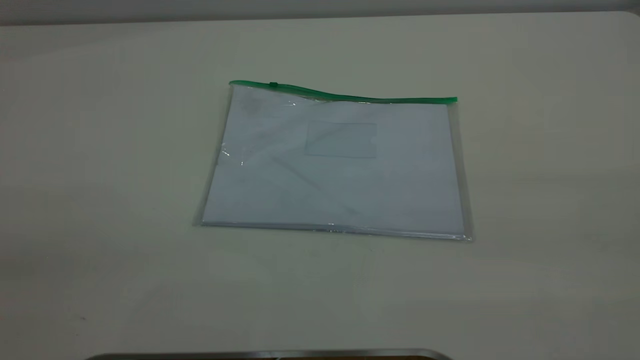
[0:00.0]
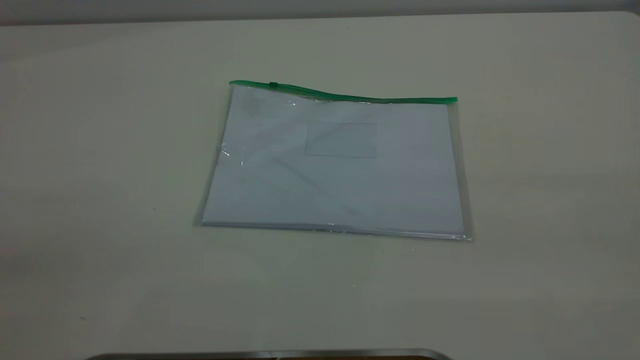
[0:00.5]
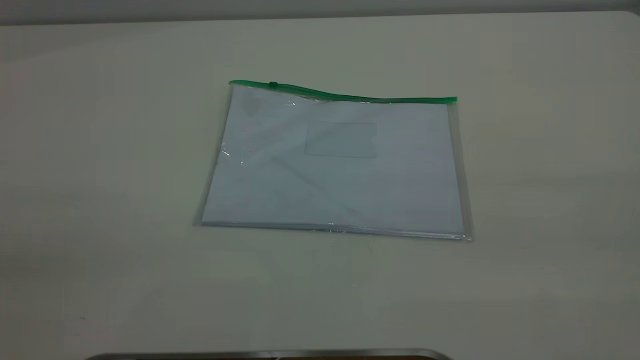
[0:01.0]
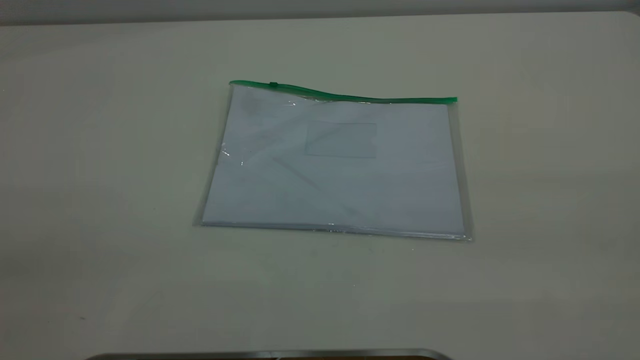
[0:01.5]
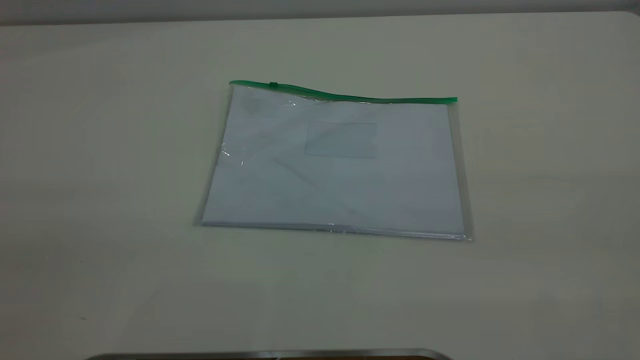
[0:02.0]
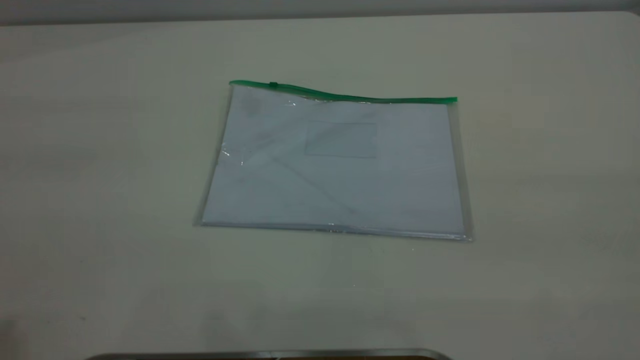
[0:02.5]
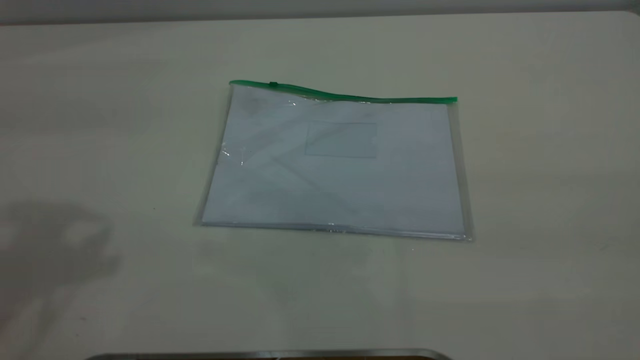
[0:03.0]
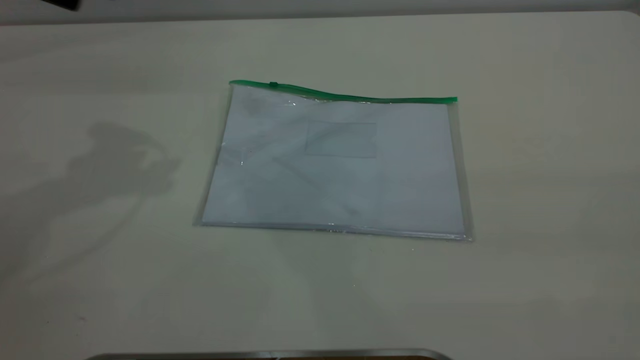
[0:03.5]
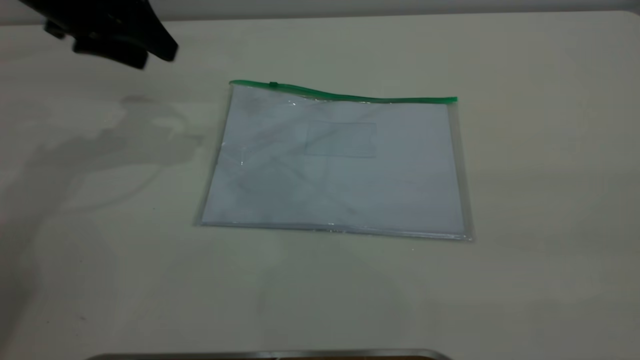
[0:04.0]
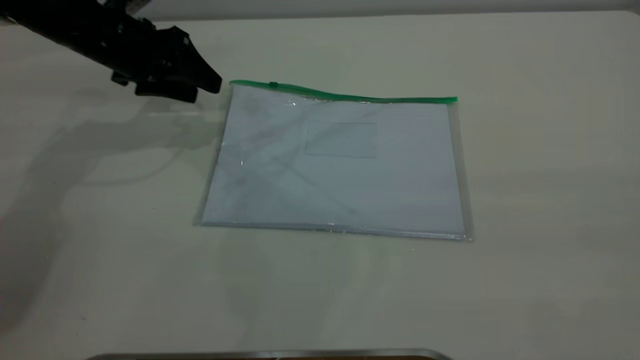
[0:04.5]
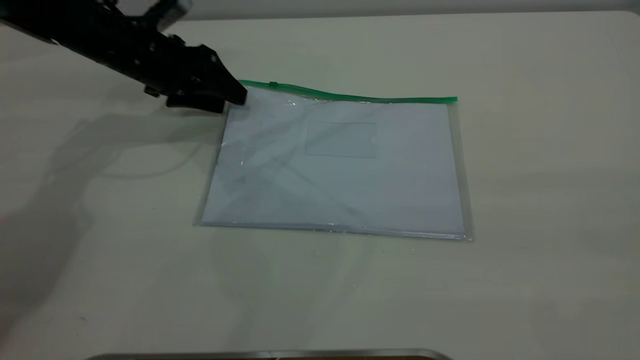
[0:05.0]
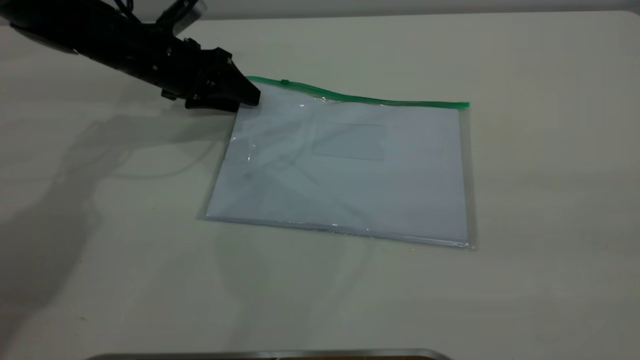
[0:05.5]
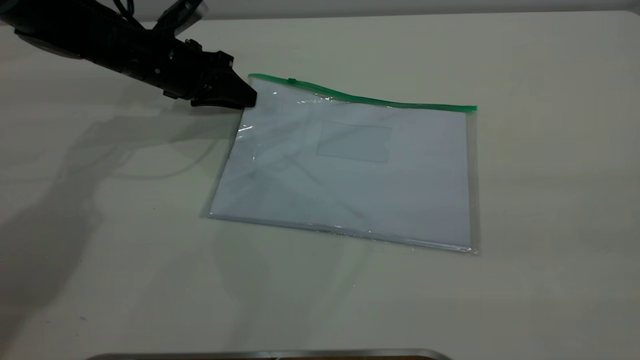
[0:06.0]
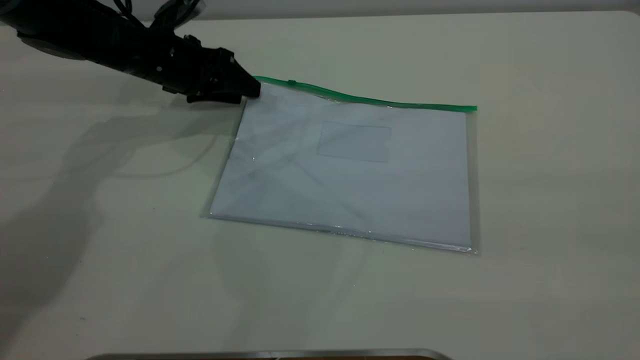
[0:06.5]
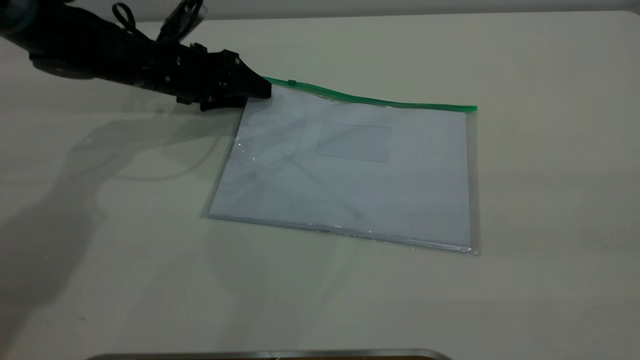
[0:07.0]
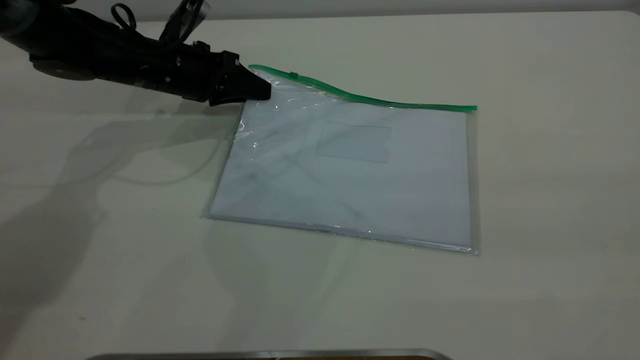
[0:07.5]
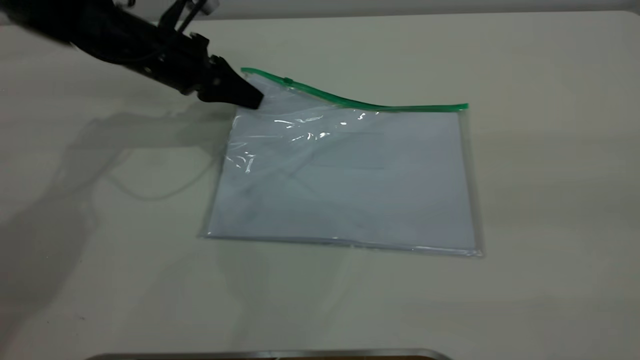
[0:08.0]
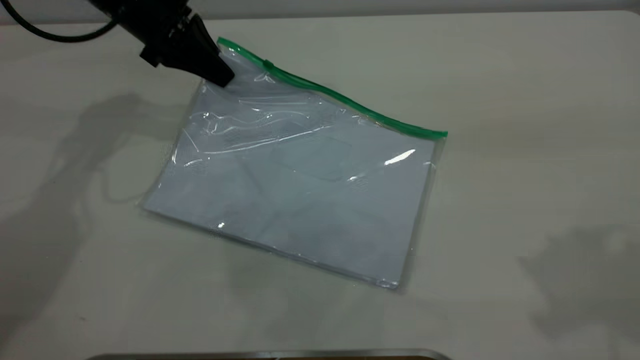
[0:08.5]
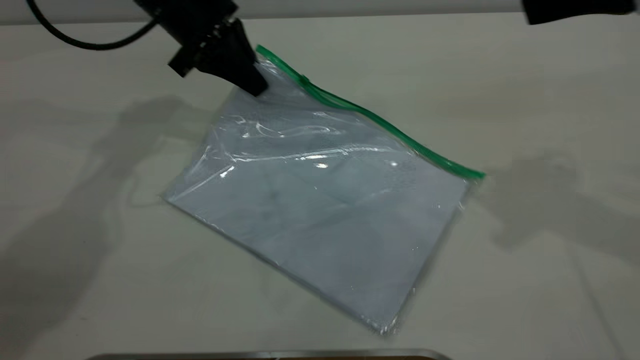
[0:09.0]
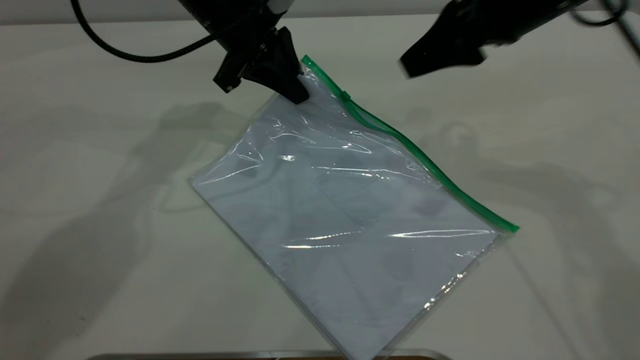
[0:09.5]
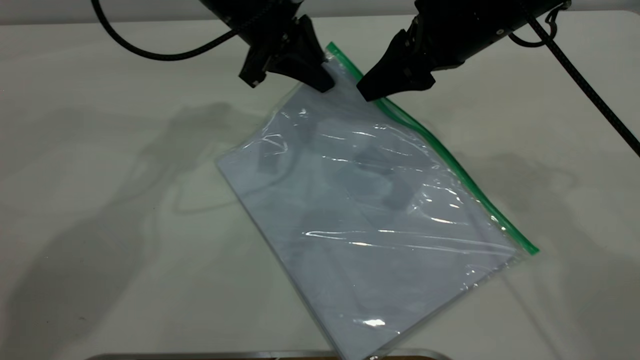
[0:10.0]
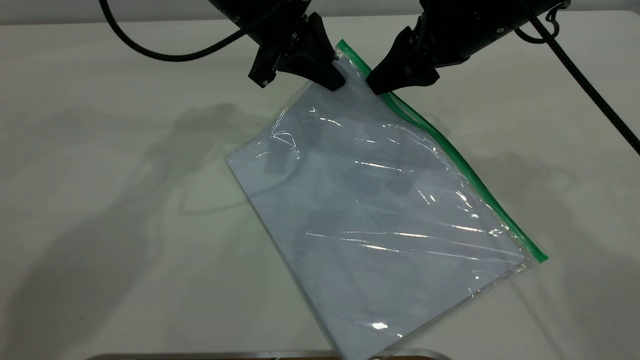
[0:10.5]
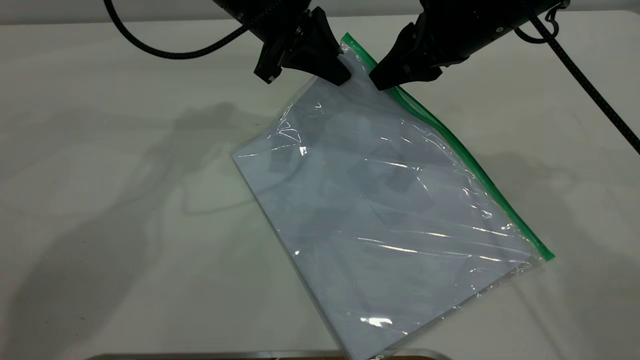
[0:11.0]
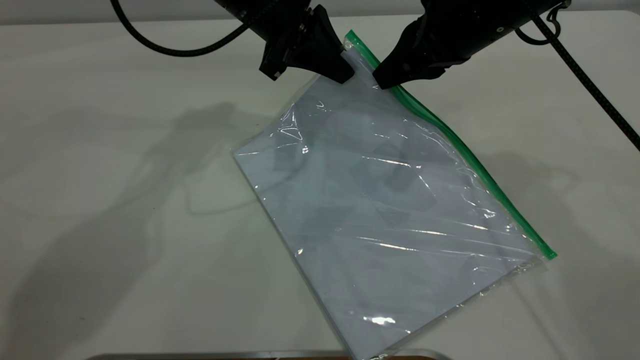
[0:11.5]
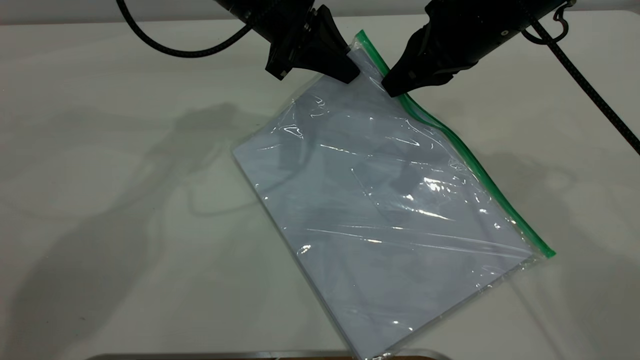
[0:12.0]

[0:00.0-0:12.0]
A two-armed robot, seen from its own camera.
Step, 0:00.0 to 0:08.5: Pick up the transparent plastic bag with the left gripper.
0:00.0 to 0:02.0: Both grippers stay put.
0:02.0 to 0:04.0: The left gripper shifts about 50 cm forward and downward.
0:04.0 to 0:06.0: The left gripper heads downward and forward, covering approximately 15 cm, and closes its fingers.
0:06.0 to 0:08.0: The left gripper opens, then closes once more. Meanwhile the right gripper goes some 5 cm forward.
0:08.0 to 0:10.0: The right gripper is displaced forward, downward and to the left by approximately 40 cm. The left gripper is displaced to the right and upward by approximately 15 cm.
0:10.0 to 0:12.0: The right gripper closes up.

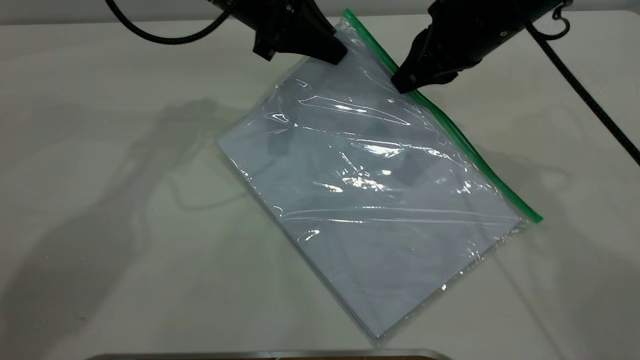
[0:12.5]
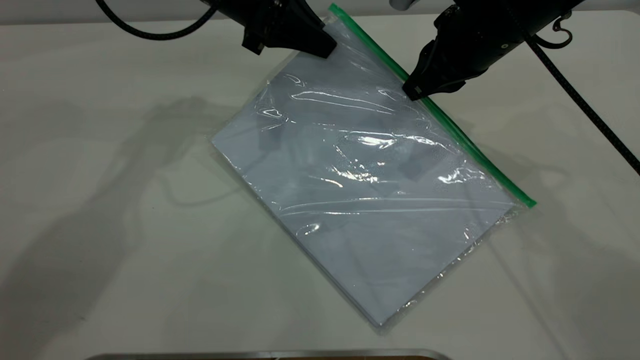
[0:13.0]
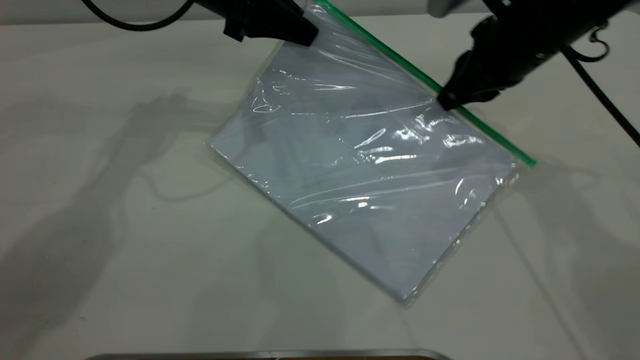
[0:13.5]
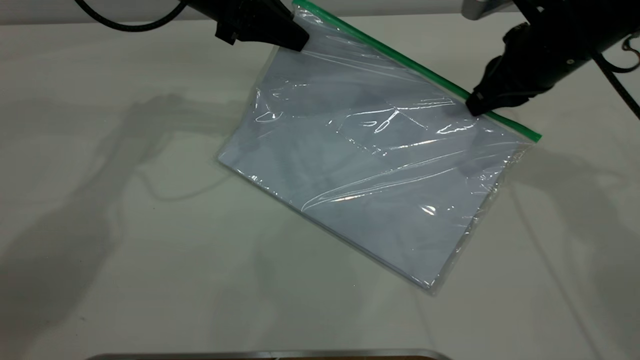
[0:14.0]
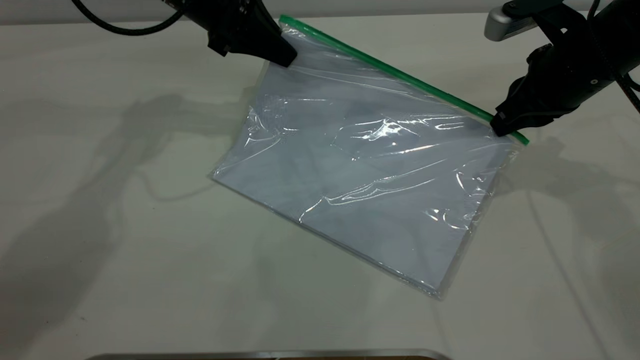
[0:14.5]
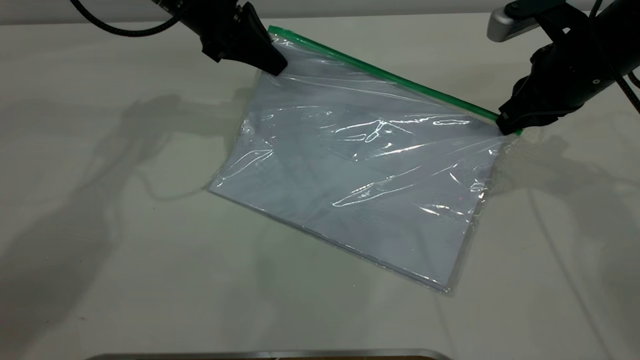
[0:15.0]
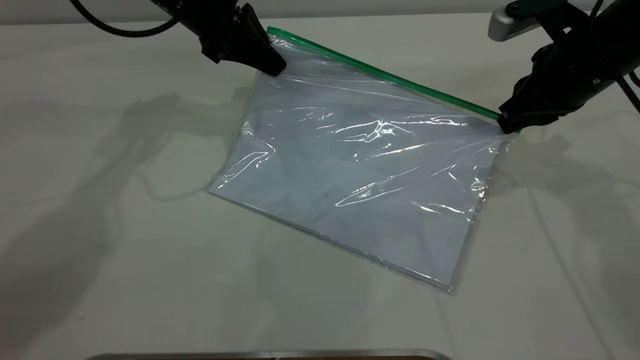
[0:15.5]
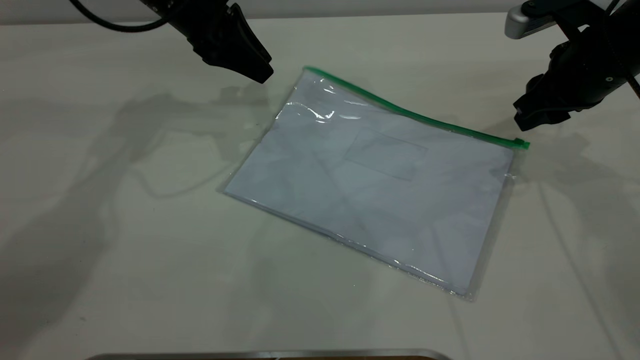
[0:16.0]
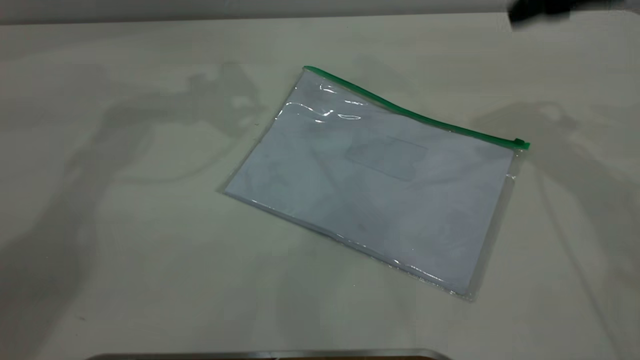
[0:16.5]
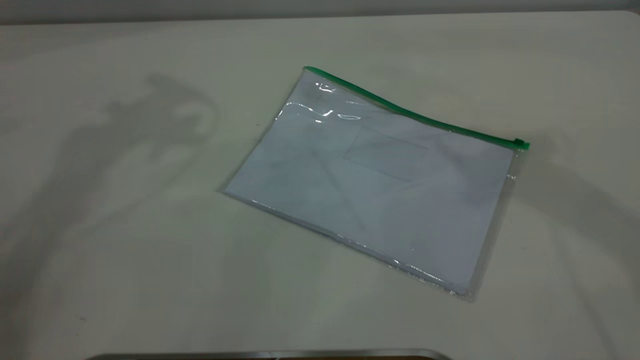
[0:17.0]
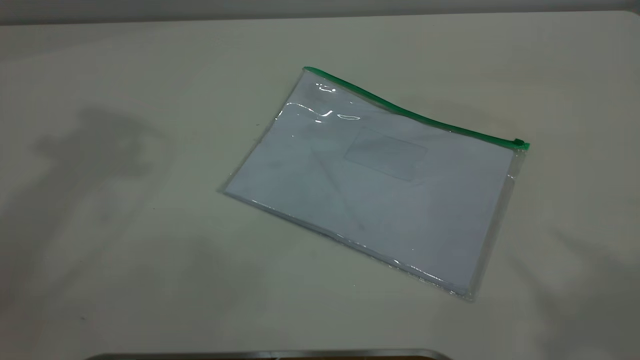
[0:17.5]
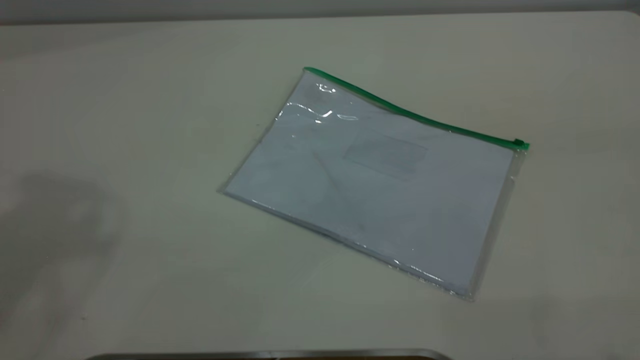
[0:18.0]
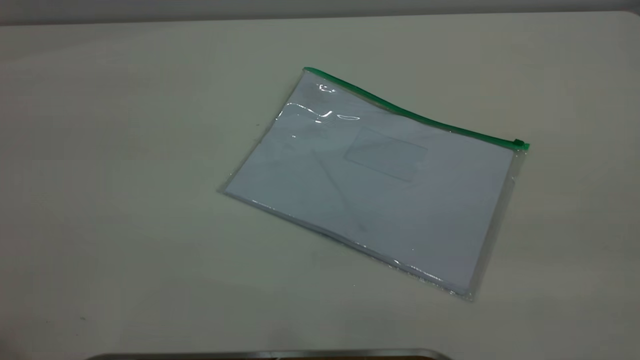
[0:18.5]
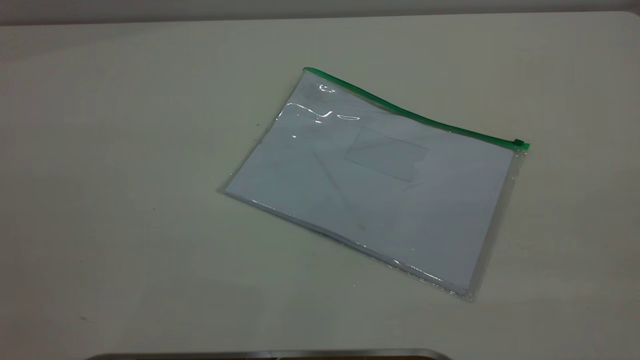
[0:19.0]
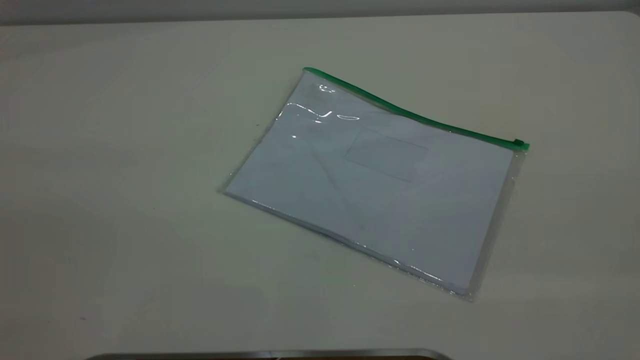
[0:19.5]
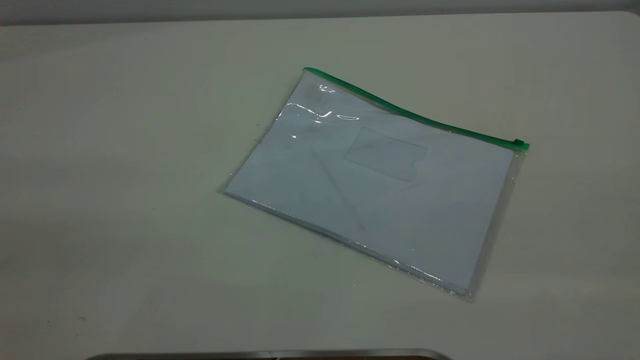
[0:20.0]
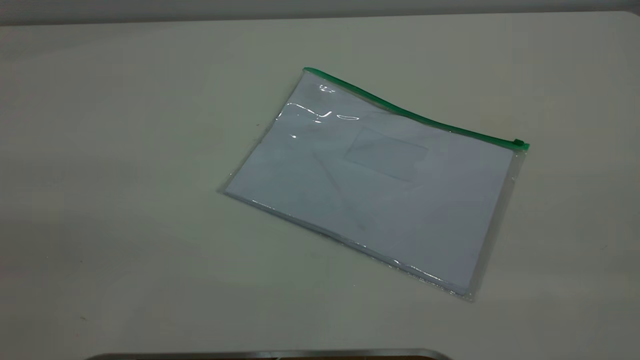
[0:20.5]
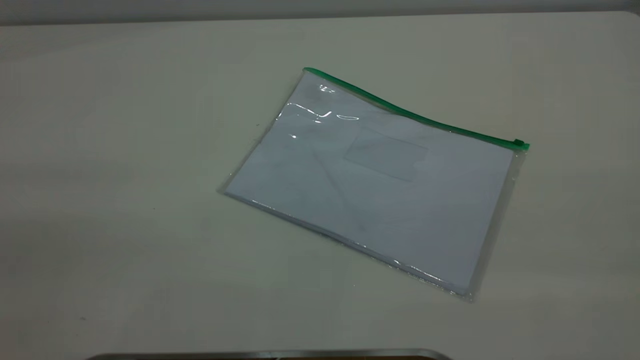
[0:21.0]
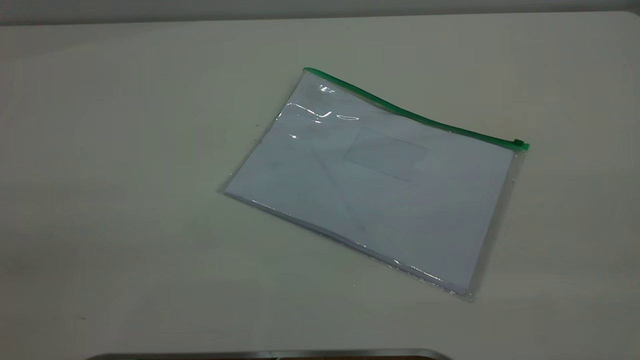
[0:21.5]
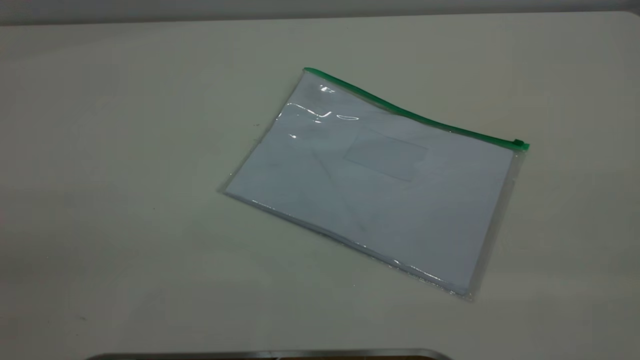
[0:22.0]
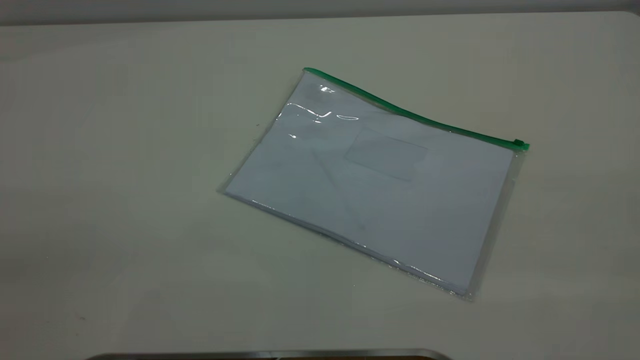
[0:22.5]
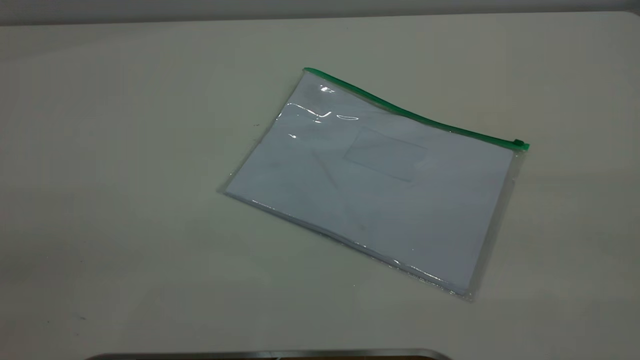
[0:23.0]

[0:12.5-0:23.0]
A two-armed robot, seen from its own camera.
Step, 0:12.5 to 0:15.0: Pulling up the zipper on the transparent plastic bag with the right gripper to close it.
0:12.5 to 0:14.5: The left gripper goes about 5 cm to the left. The right gripper is displaced to the right by some 10 cm.
0:14.5 to 0:16.5: Both grippers move upward, about 10 cm. The left gripper opens up; the right gripper opens.
0:16.5 to 0:19.0: The right gripper shifts some 40 cm backward.
